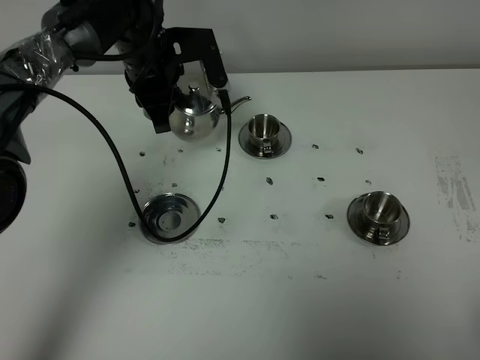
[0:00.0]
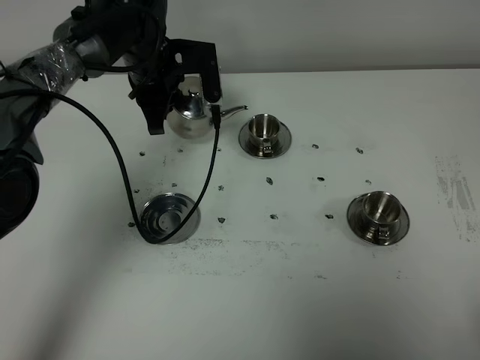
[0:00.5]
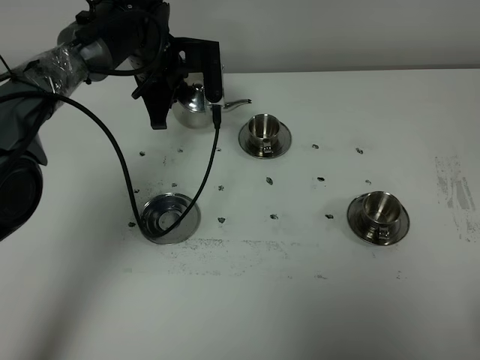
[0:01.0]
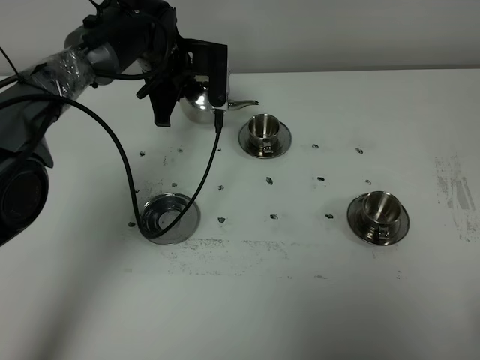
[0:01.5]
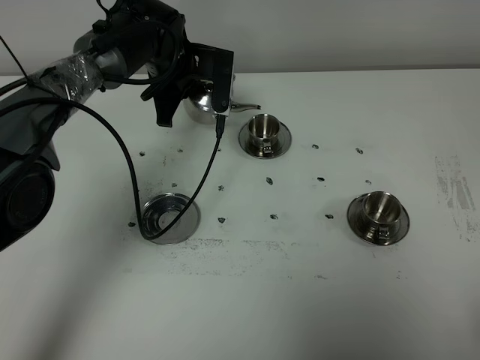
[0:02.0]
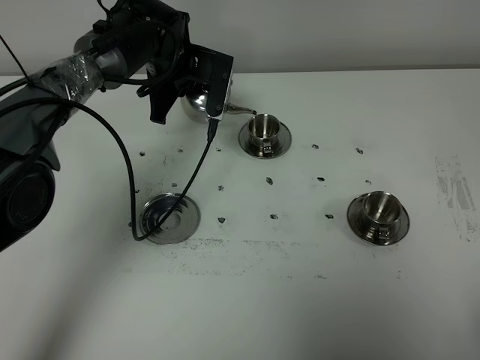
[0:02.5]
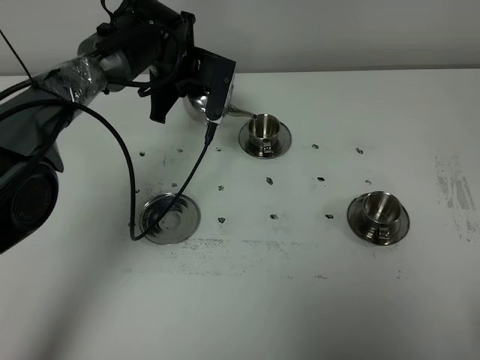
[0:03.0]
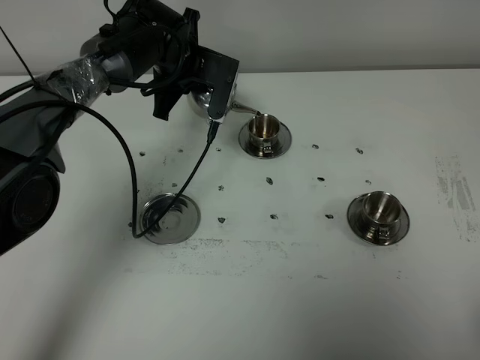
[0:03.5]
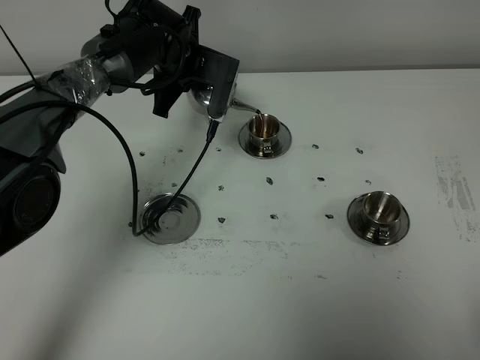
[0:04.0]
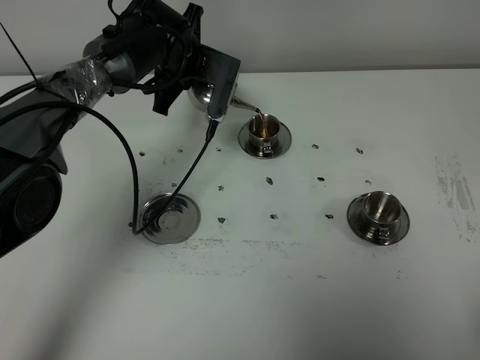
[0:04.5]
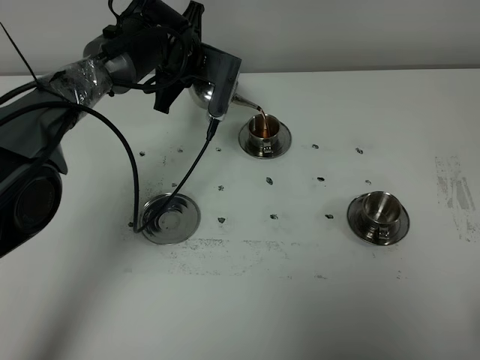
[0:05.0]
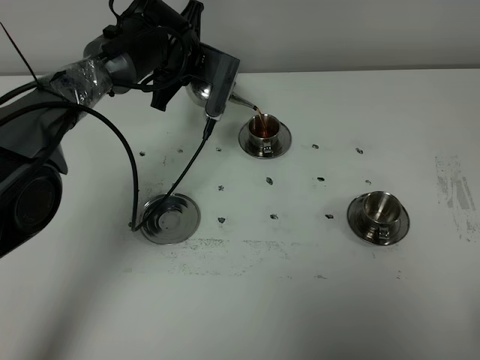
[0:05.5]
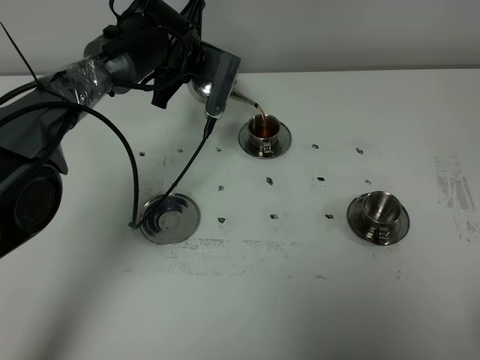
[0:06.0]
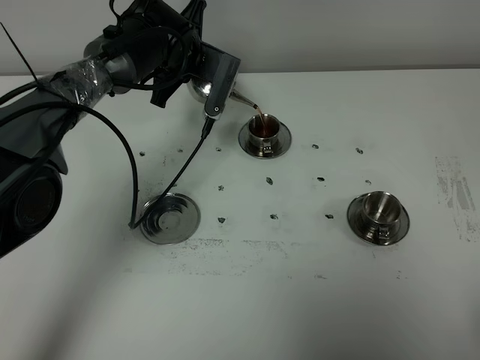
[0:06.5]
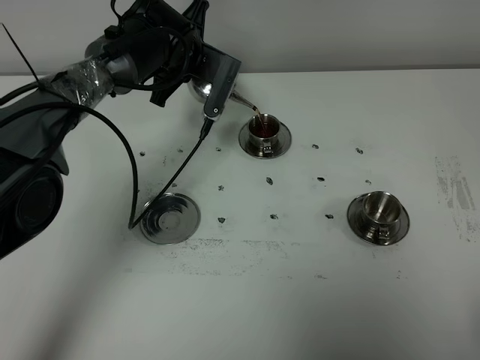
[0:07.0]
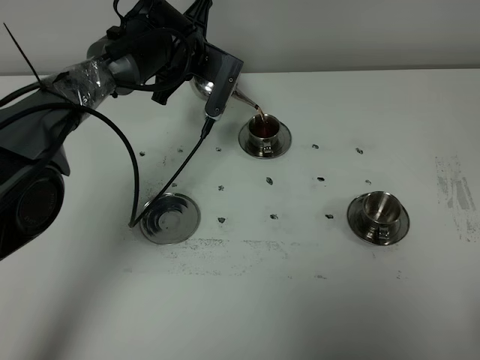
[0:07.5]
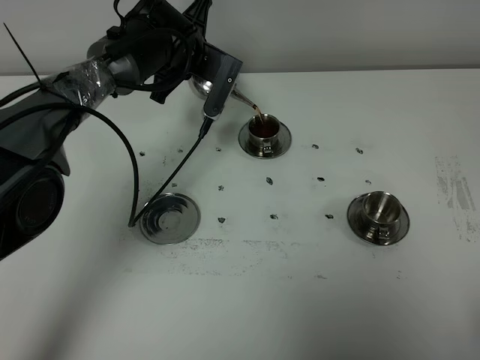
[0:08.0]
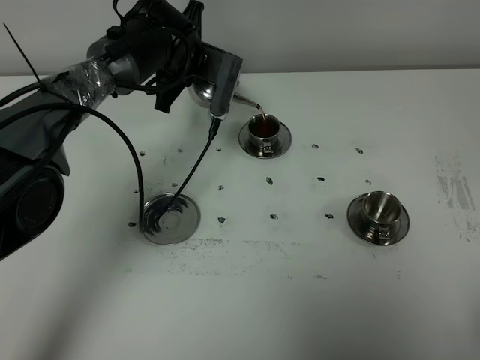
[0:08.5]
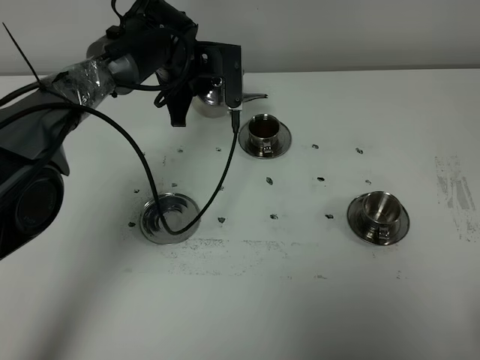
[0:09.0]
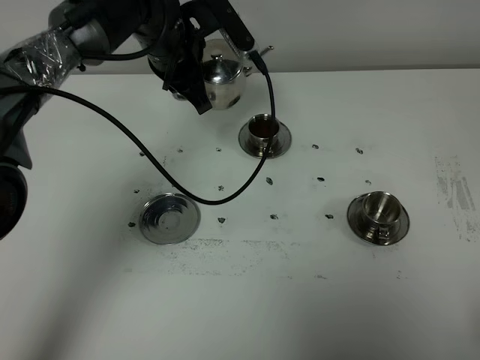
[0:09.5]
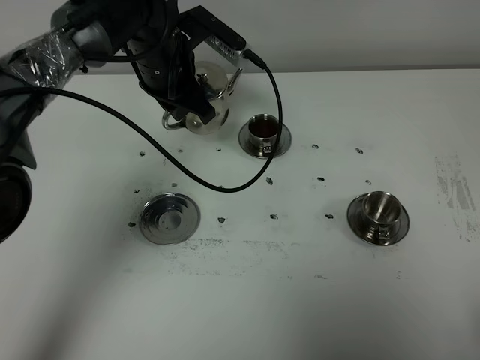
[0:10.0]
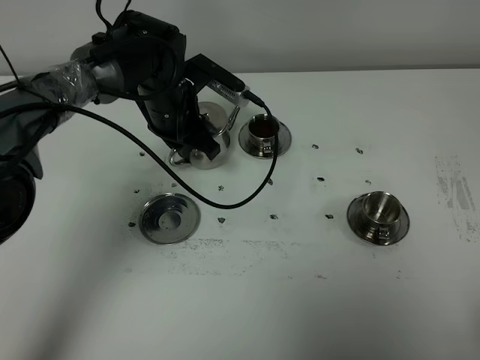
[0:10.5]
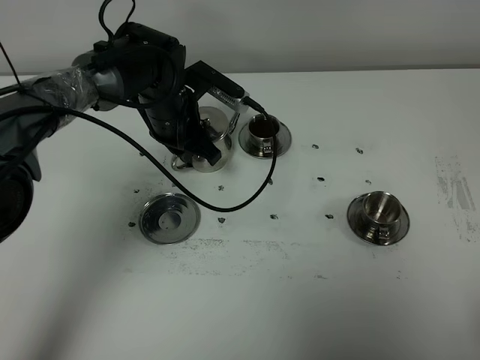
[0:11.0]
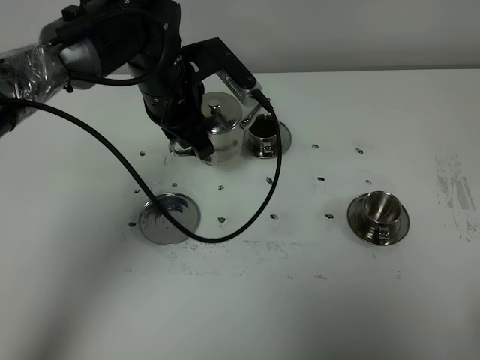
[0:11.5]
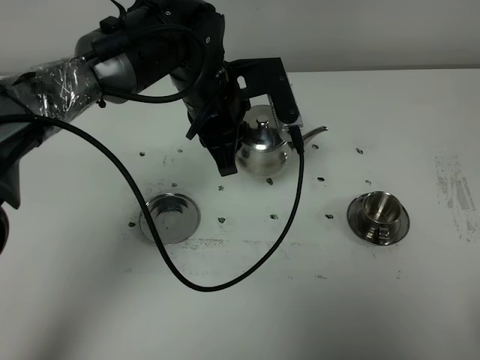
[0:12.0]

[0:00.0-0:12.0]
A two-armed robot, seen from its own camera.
Task of the whole recording: grasp the stainless steel teapot and pour the tea into the two stainless steel teacups one by one, put the stainless steel teapot back in its original place.
Step, 0.0 to 8.5 s: Pour tea into the teacup with the left gripper.
0.0 to 2.0 s: The left gripper ends up about 5 cm from where it was.
2.0 to 6.0 s: The grippers move only a little.
6.0 to 8.0 s: There are only small adjustments of the grippers.
8.0 to 10.0 s: The left gripper is displaced backward by roughly 5 cm.
10.0 to 12.0 s: The left gripper shifts roughly 10 cm backward and to the right.

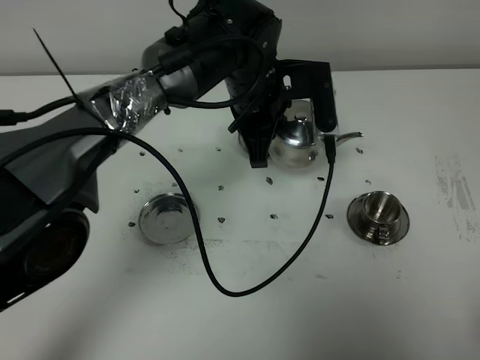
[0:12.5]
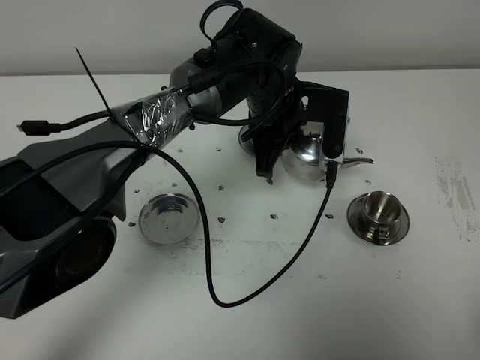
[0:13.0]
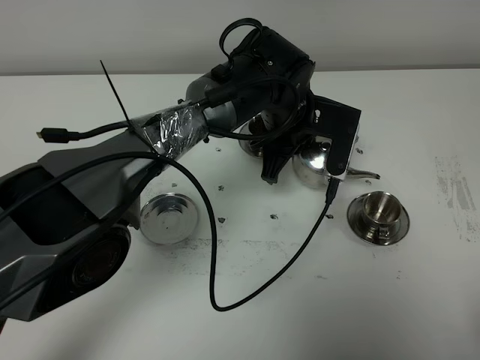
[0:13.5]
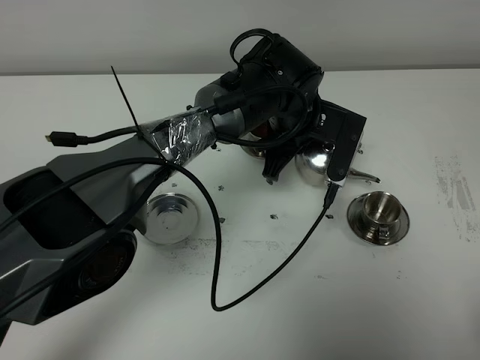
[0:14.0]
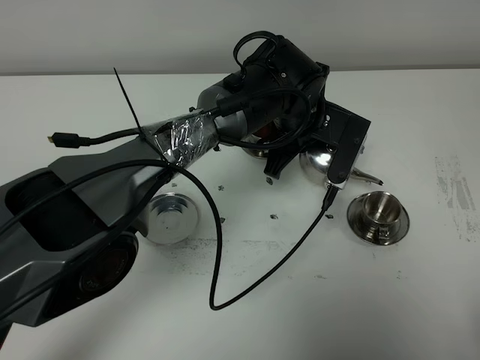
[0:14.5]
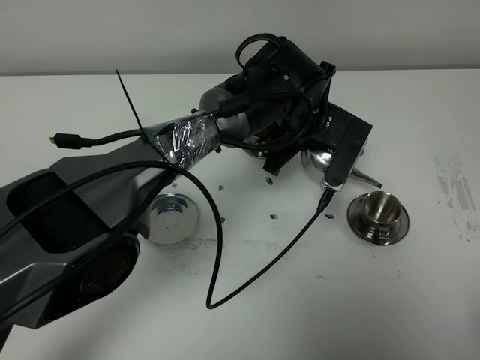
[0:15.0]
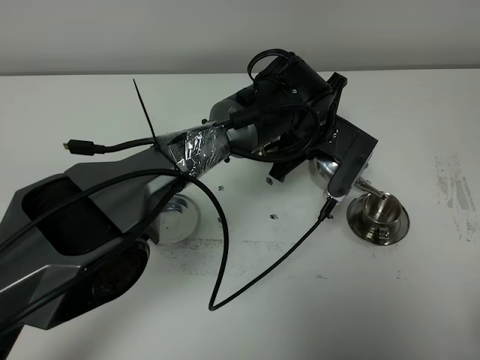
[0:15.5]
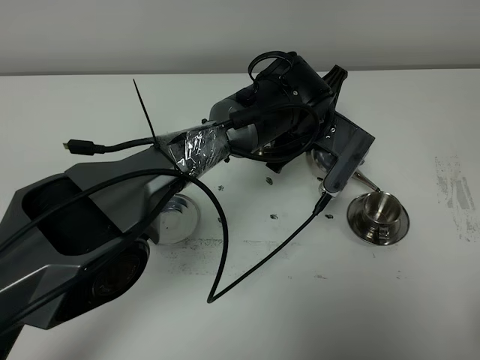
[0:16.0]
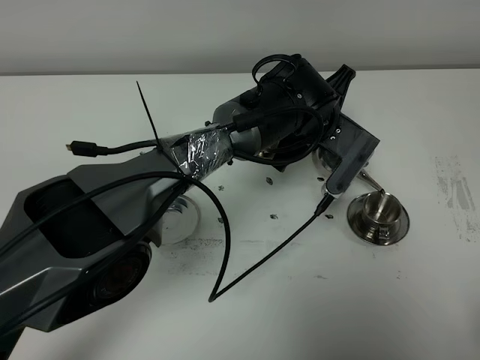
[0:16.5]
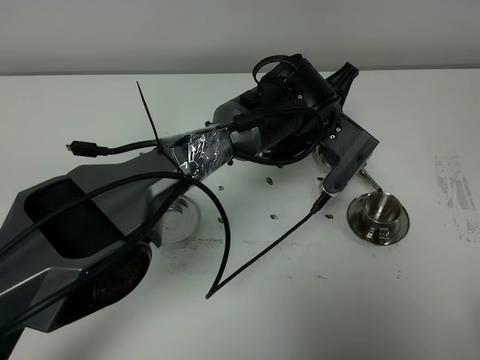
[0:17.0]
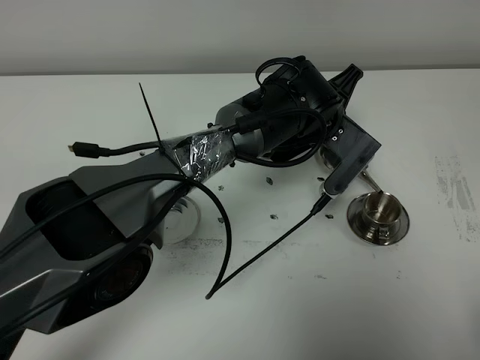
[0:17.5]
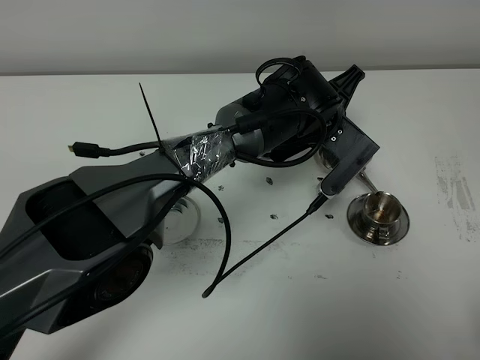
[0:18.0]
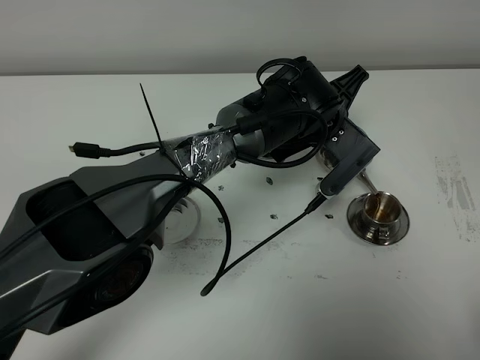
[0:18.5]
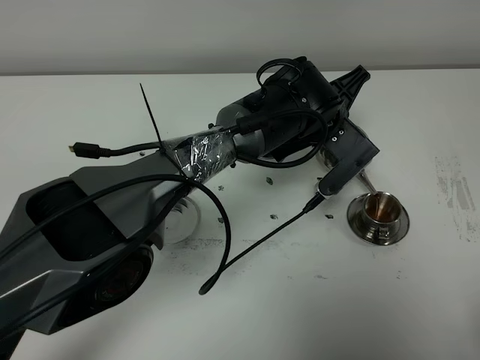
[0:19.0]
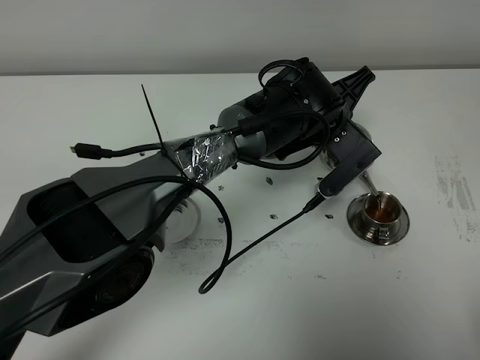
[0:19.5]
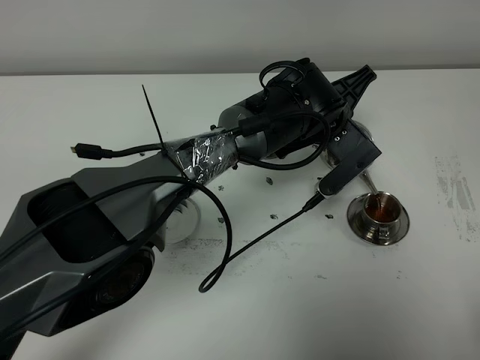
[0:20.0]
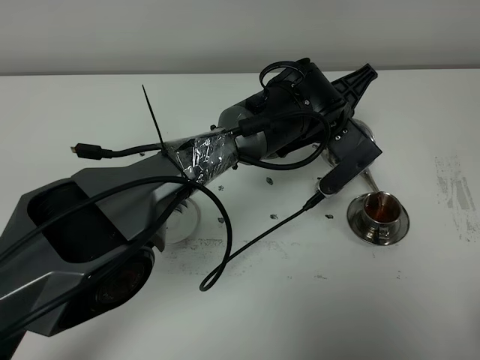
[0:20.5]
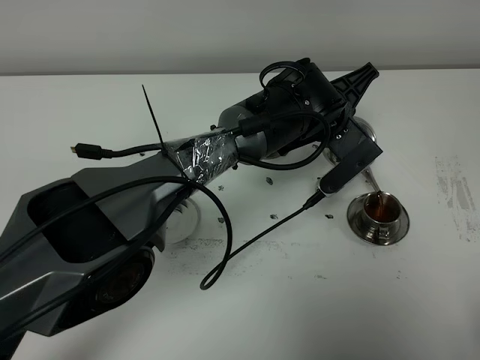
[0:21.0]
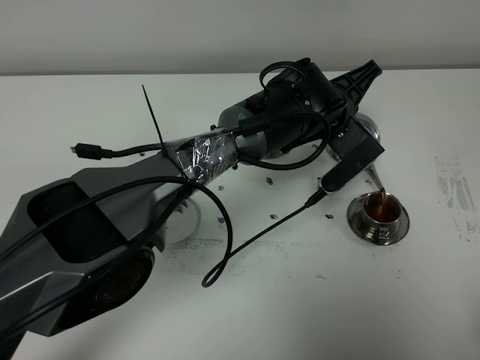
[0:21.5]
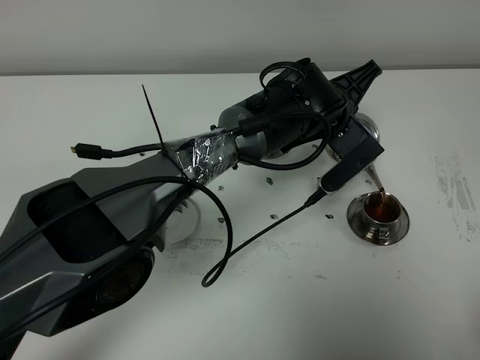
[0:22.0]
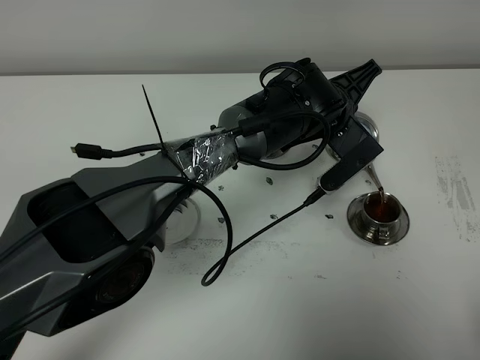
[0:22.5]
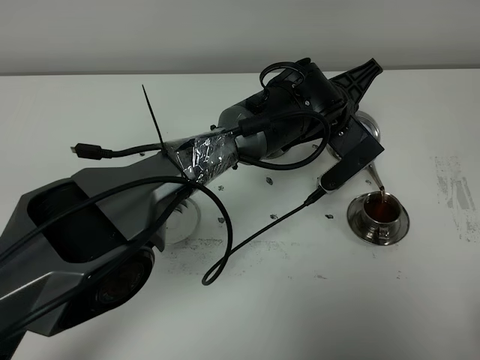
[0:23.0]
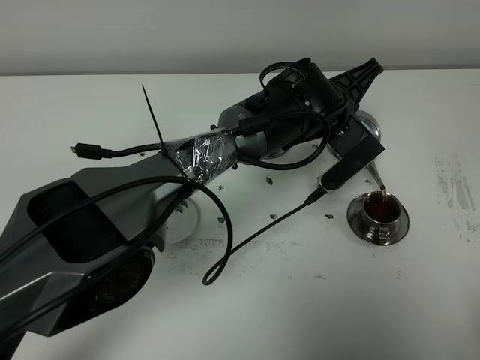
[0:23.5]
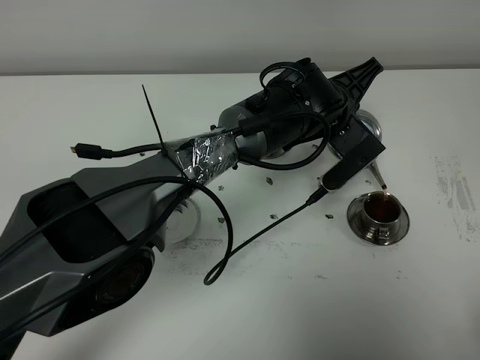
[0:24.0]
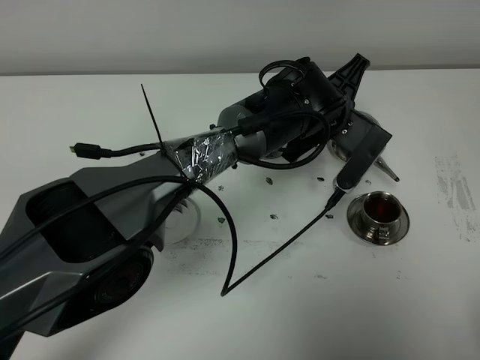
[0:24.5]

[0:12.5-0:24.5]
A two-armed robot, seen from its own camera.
Task of the whole recording: grasp the stainless steel teapot and pour the tea into the two stainless steel teacups one by one, put the stainless steel teapot back in its original place.
12.5 to 14.5 s: The left gripper changes place by about 5 cm.
14.5 to 16.5 s: The grippers make only small movements.
16.5 to 20.5 s: The grippers stay close to where they were, moving slightly.
20.5 to 22.5 s: Neither gripper changes place.
22.5 to 24.5 s: The grippers move only a little.

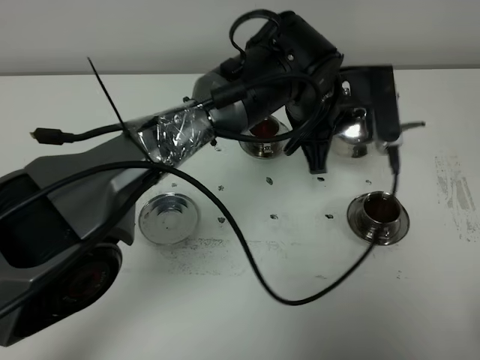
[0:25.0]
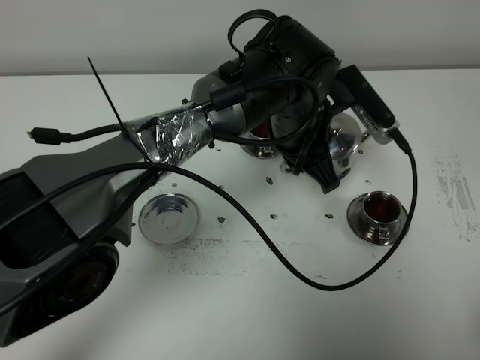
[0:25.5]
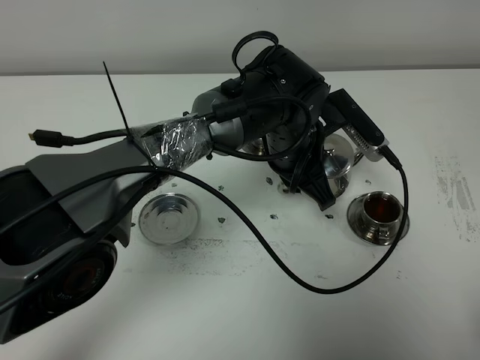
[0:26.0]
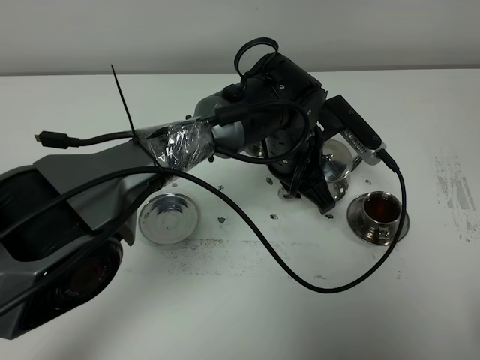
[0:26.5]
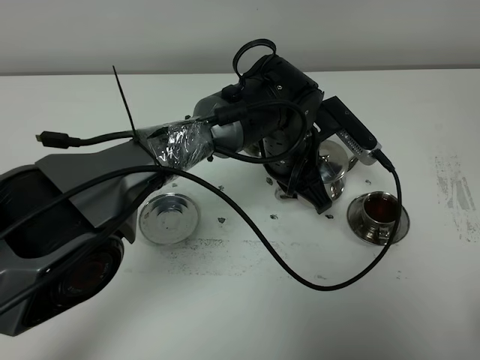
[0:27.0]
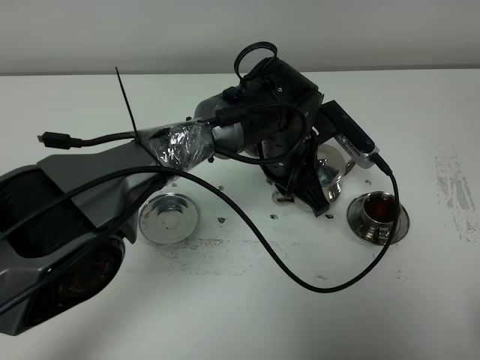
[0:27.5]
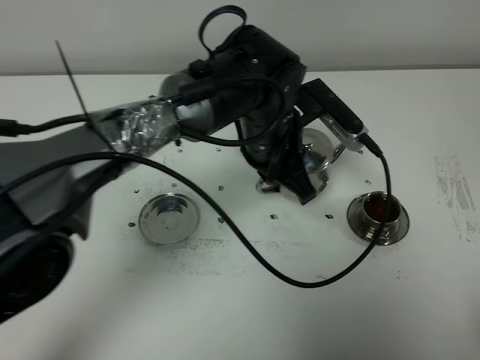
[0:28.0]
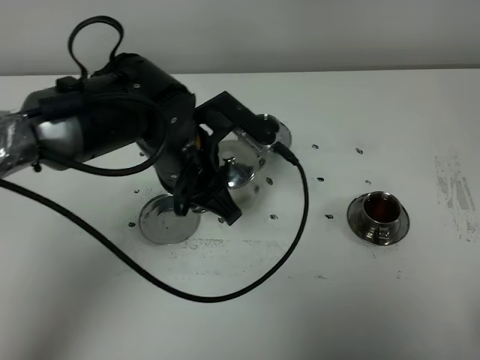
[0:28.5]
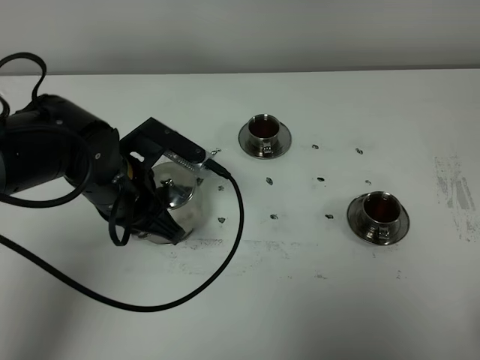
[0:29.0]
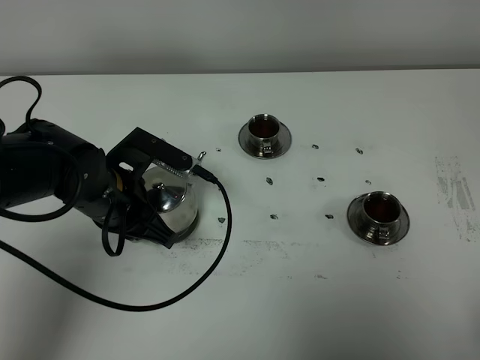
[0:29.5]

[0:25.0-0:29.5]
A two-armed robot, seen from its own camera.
Task of the whole recording: grasp the stainless steel teapot and pour the tea into the two stainless steel teacups one by one, put the stainless steel teapot back in its original place.
25.0 to 27.0 s: The left gripper goes roughly 5 cm downward.
27.0 to 29.5 s: The left gripper goes approximately 20 cm to the left.
